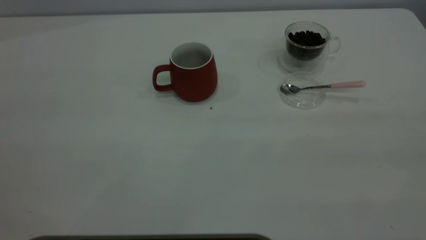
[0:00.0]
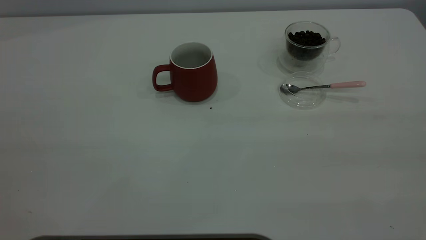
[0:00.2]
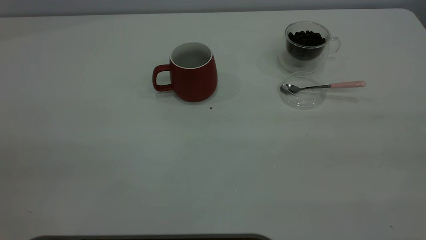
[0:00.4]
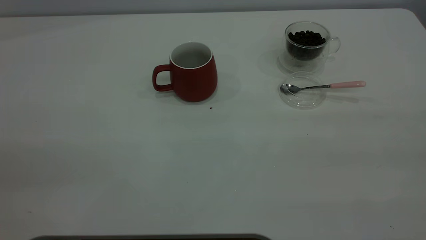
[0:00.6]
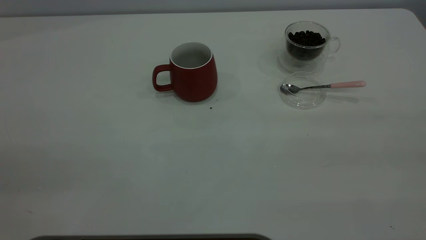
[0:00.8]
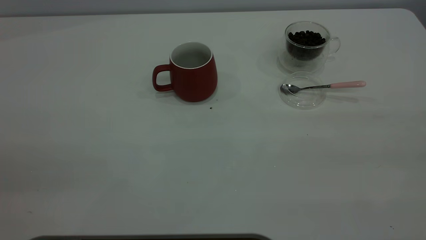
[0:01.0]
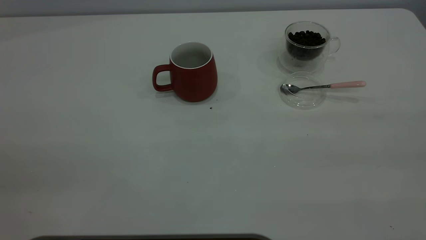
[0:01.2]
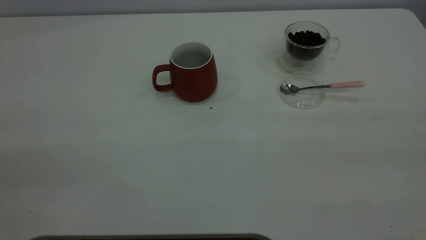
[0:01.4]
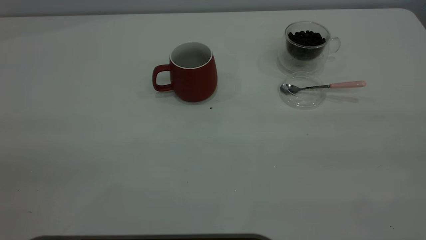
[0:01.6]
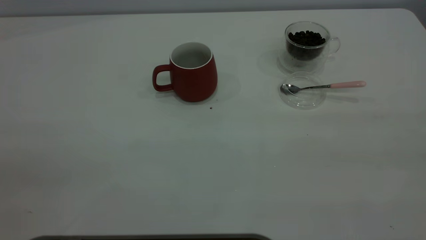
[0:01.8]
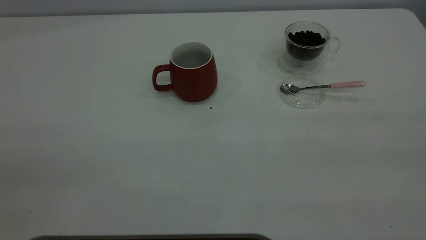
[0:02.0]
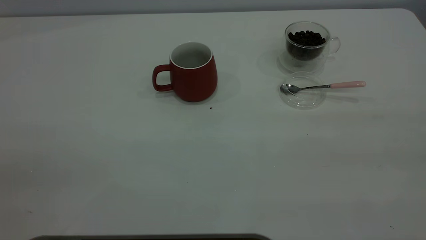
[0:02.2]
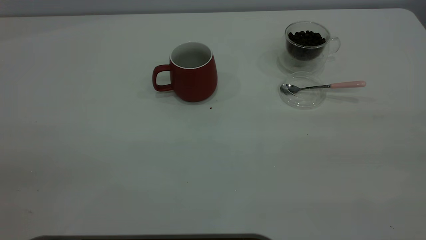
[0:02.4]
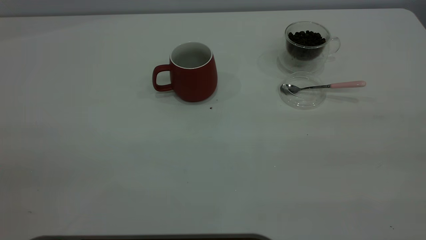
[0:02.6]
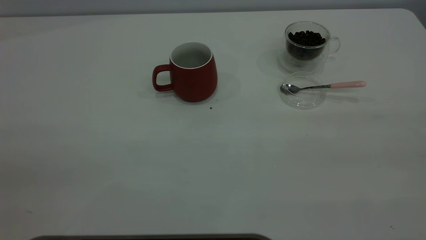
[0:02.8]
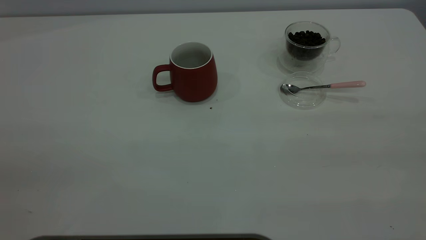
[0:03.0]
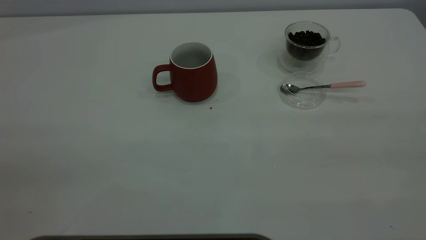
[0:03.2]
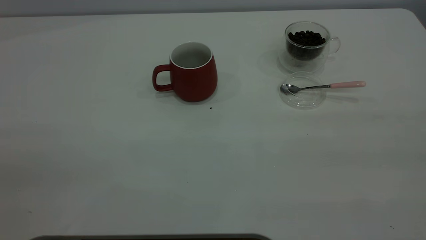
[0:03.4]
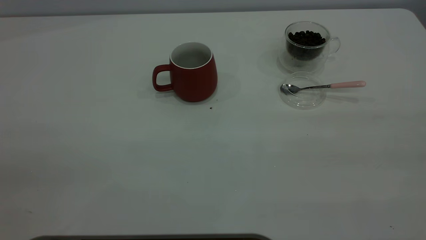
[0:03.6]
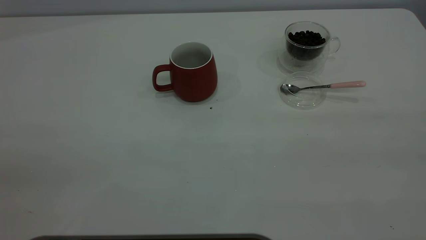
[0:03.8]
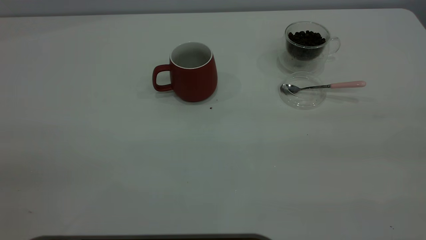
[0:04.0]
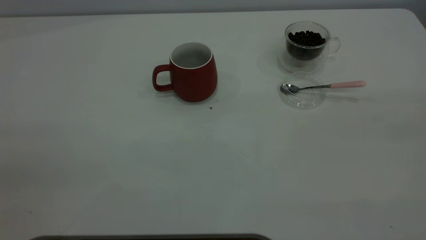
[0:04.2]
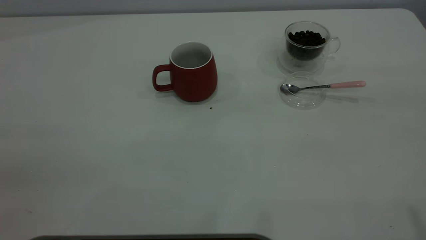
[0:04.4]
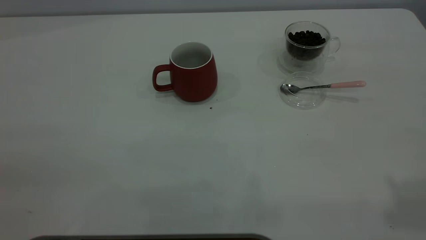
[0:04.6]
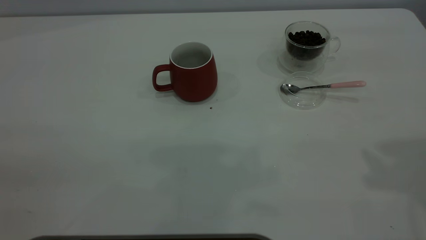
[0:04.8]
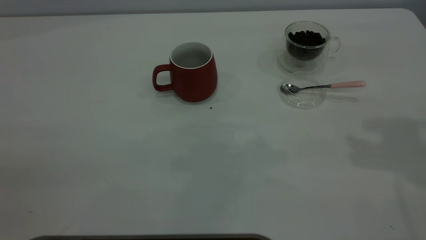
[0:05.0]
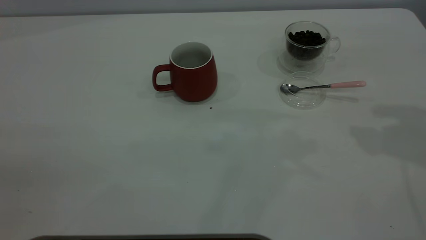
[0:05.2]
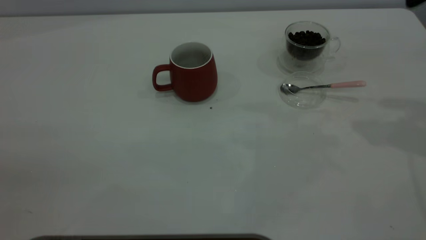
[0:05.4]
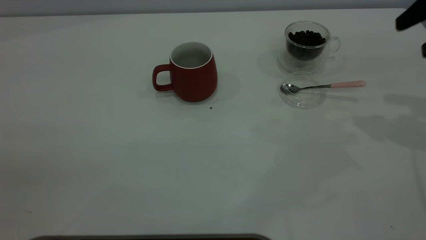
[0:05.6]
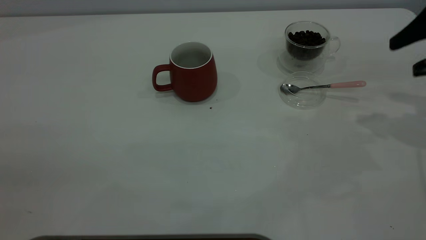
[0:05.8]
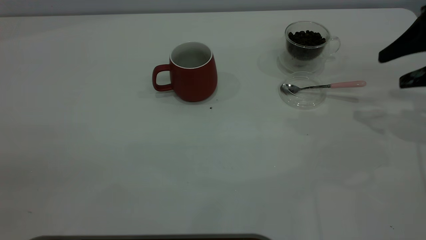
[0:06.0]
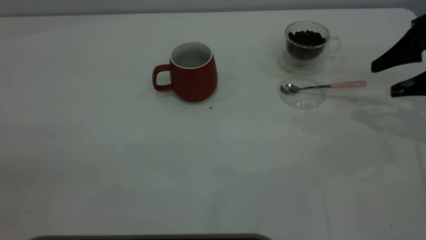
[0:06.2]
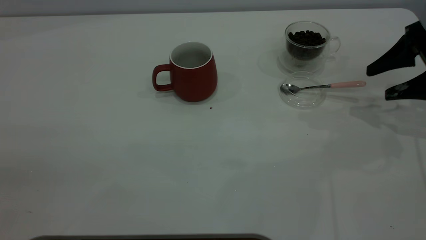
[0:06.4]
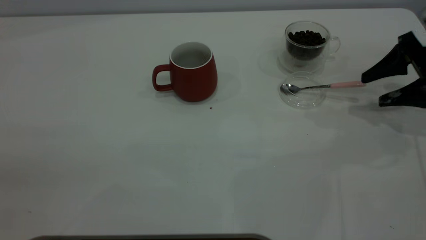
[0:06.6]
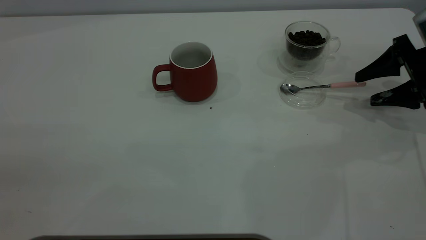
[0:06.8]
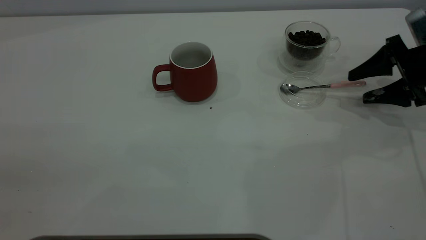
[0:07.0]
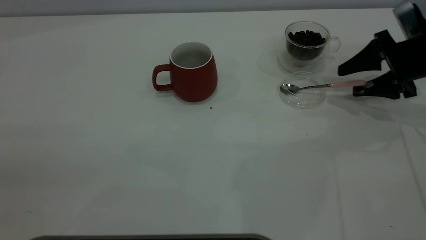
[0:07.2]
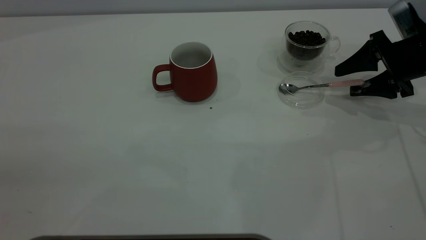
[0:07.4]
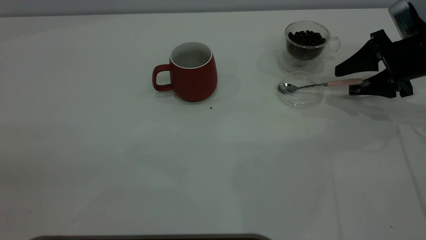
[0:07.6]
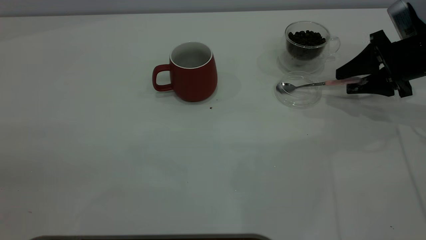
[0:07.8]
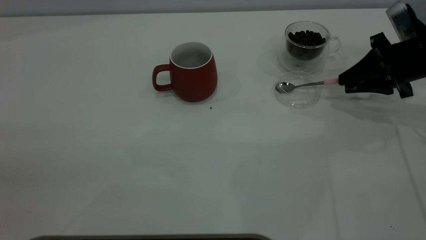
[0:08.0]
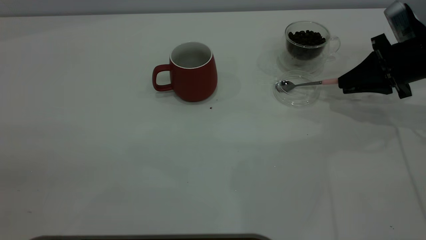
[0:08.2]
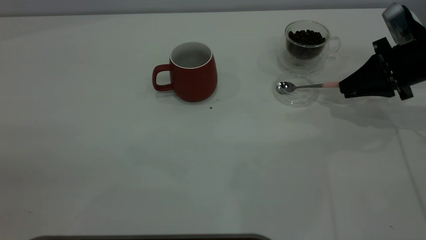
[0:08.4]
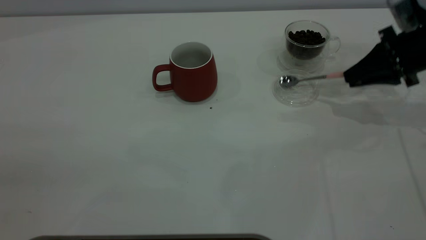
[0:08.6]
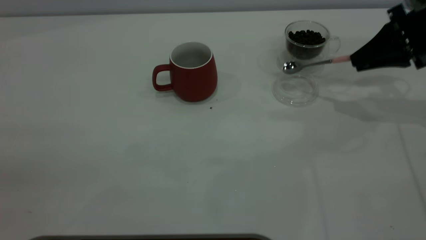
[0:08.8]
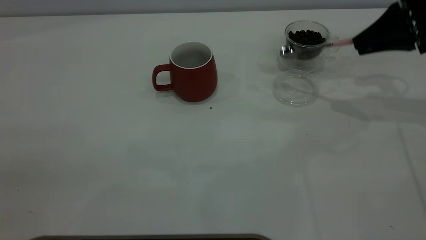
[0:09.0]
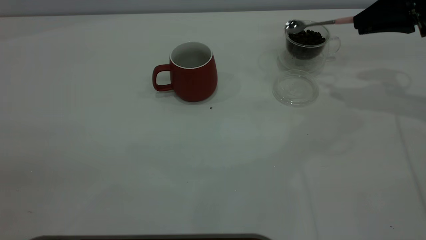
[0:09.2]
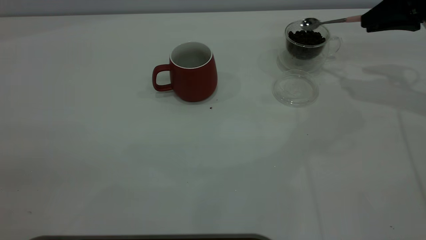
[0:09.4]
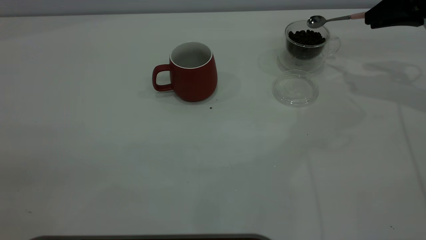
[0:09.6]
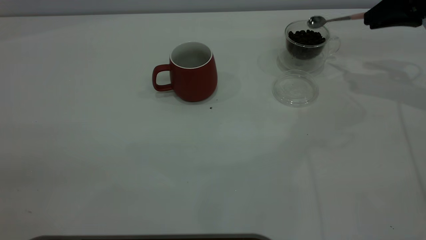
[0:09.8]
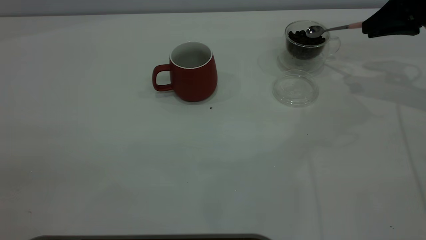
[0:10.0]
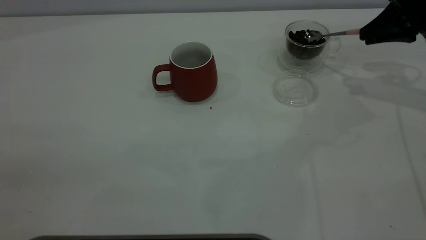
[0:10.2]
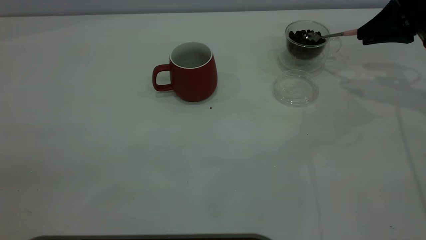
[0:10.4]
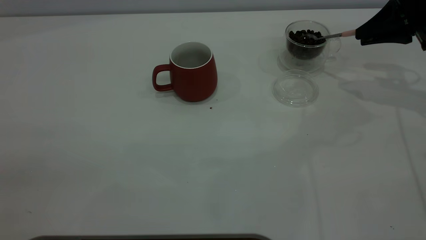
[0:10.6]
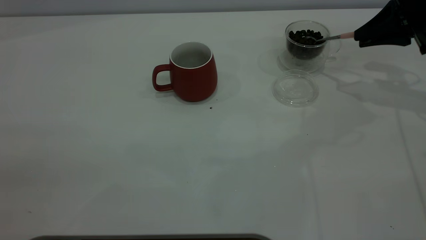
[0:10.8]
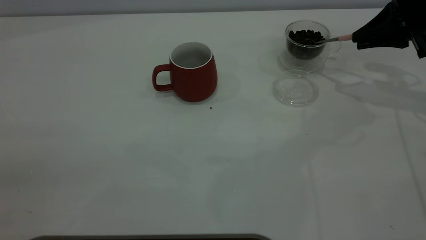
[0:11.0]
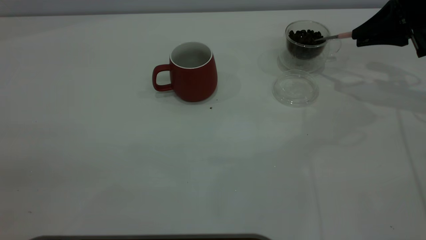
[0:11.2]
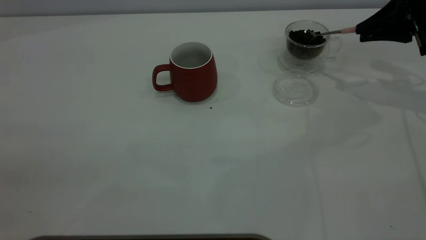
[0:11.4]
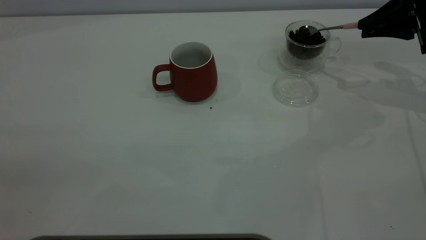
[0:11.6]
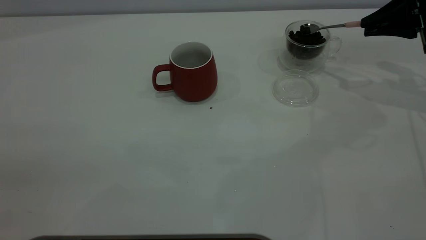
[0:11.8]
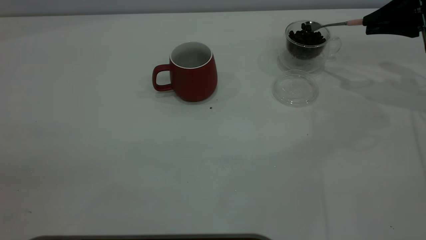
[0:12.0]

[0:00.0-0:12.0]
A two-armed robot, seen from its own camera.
Task of the whole recording: the left gripper place the red cup in the center of the table, the right gripper take the pink spoon from the cup lid and scoop out the coffee beans from the coffee cup and put them into the red cup, the right gripper put the spoon back into the cup lid.
Step, 0:00.0 to 0:08.6: Pick up the spoon.
0:04.4 to 0:06.0: The right gripper is displaced downward and forward by approximately 35 cm.
0:06.0 to 0:07.6: The right gripper is displaced downward and forward by about 10 cm.
0:07.6 to 0:09.0: The right gripper is displaced upward by approximately 10 cm, and closes.
0:09.0 to 0:10.4: The grippers move only a little.
0:10.4 to 0:12.0: The grippers move only a little.

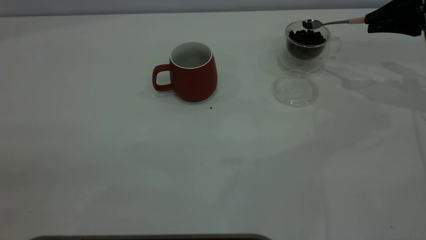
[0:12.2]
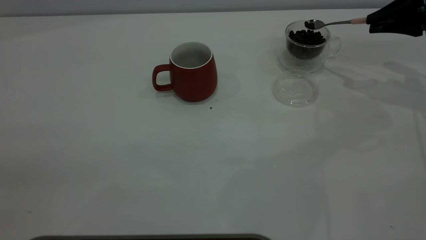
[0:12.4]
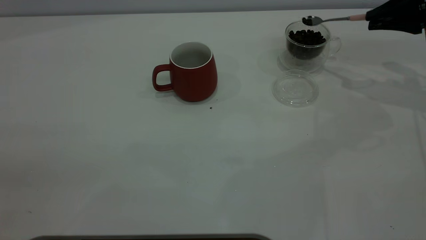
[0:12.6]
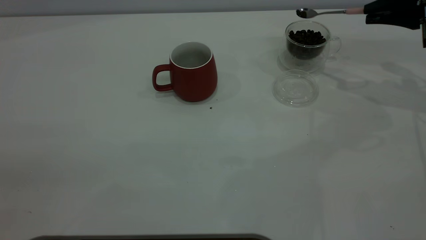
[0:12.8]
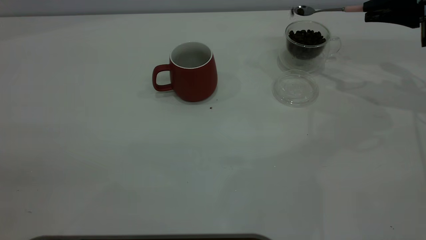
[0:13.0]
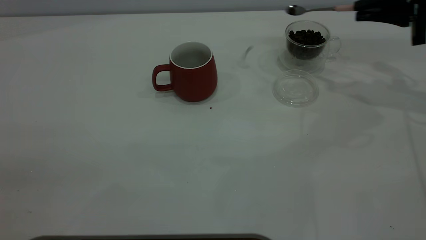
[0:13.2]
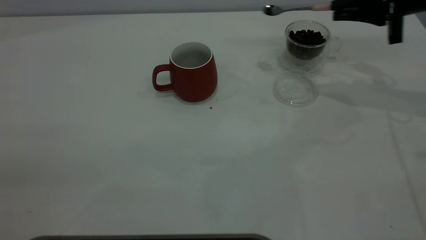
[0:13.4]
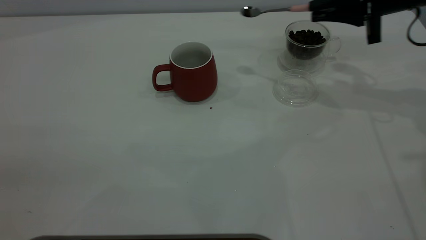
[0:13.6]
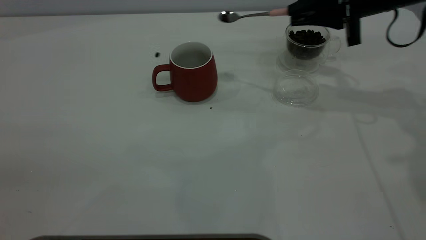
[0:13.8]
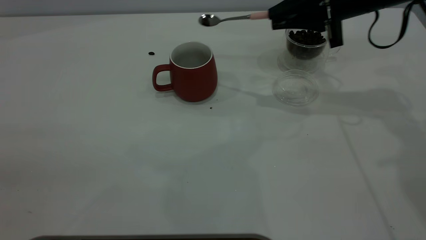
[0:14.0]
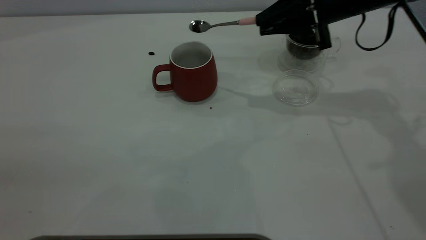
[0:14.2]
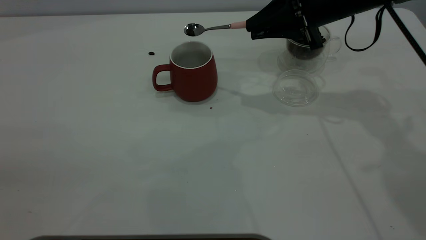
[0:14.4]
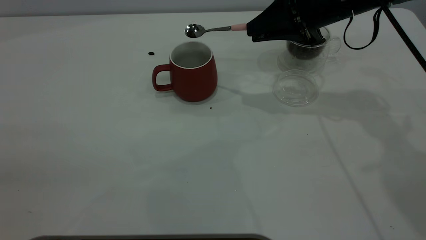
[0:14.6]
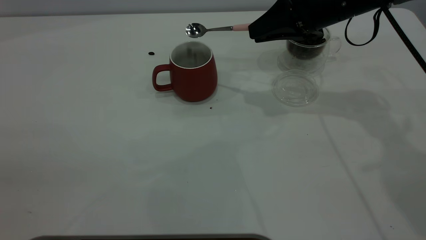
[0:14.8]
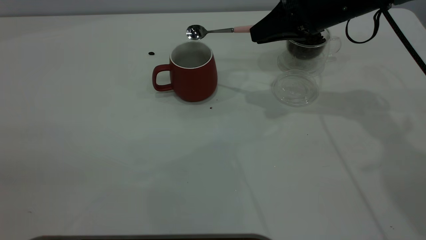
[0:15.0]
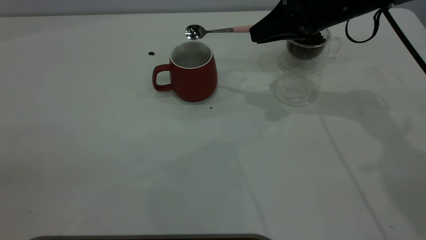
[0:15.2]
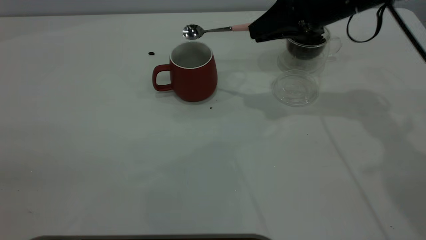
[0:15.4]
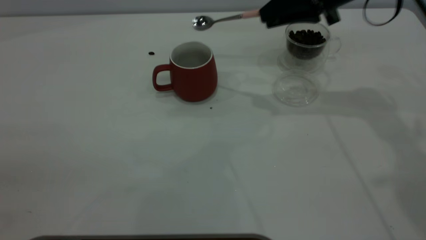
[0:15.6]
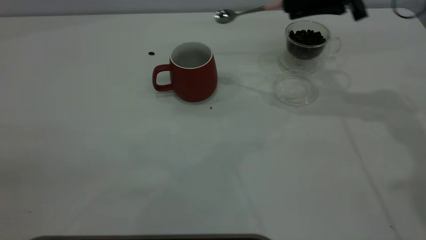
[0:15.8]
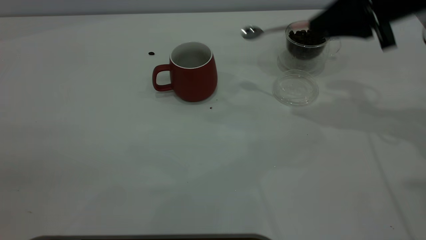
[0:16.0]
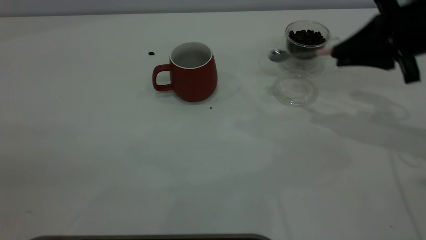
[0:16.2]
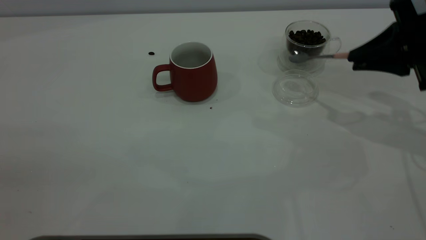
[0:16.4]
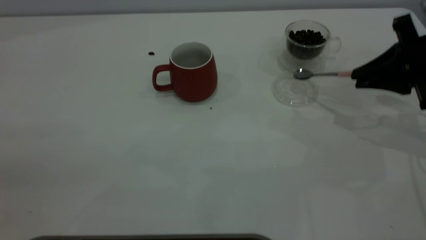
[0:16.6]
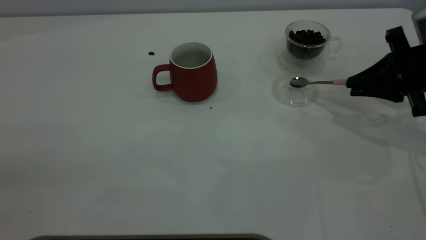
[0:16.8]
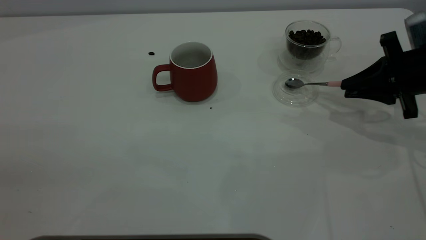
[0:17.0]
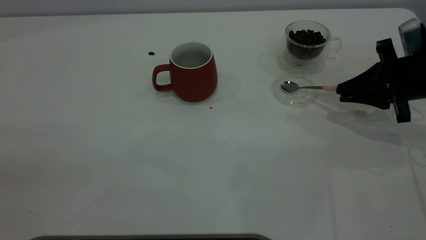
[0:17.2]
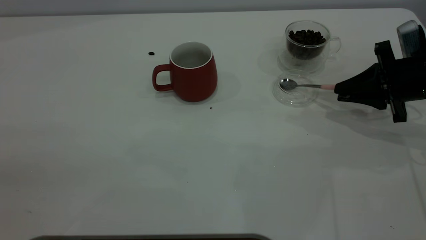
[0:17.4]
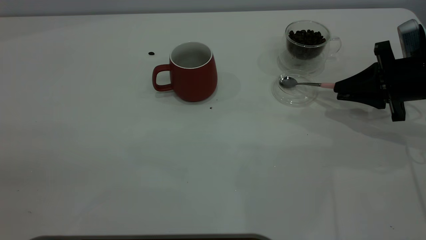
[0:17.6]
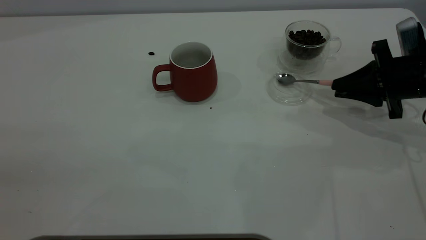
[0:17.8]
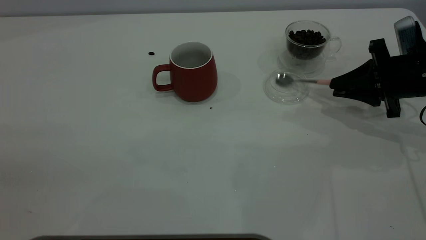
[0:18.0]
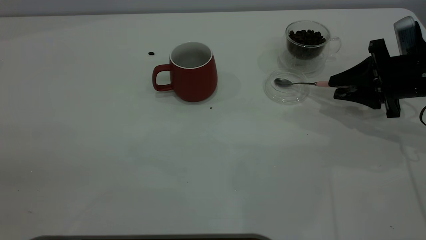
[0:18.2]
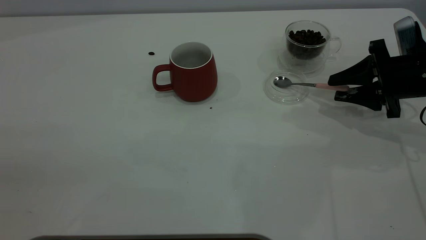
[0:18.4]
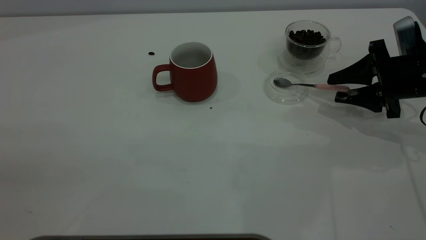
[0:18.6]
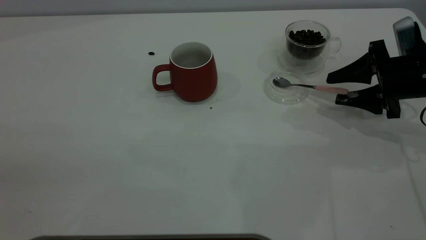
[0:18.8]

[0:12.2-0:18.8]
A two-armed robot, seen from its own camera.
Task of the whole recording: the left gripper place the red cup in the center of the table, the right gripper take the pink spoon from the cup lid and scoop out the coffee beans from the coffee cup and put them into the red cup, the right gripper put the spoon back into the cup lid.
Step, 0:12.2 to 0:15.2: Scoop a spoonful of beans into the cup.
0:12.2 to 0:13.8: The right gripper goes roughly 15 cm to the left.
0:13.8 to 0:15.4: The right gripper goes about 5 cm to the left.
0:15.4 to 0:17.2: The right gripper goes some 20 cm to the right, downward and backward.
0:17.2 to 0:18.8: The right gripper opens.
